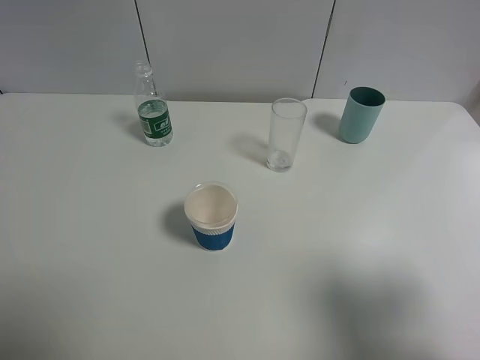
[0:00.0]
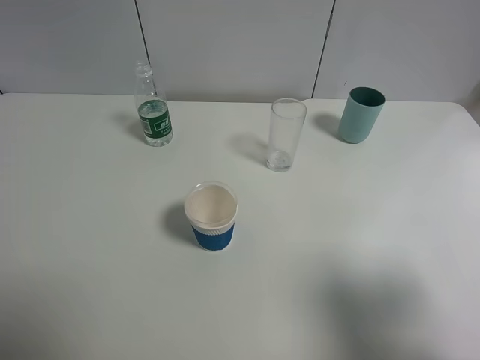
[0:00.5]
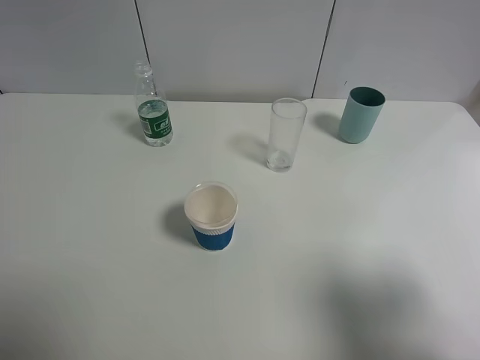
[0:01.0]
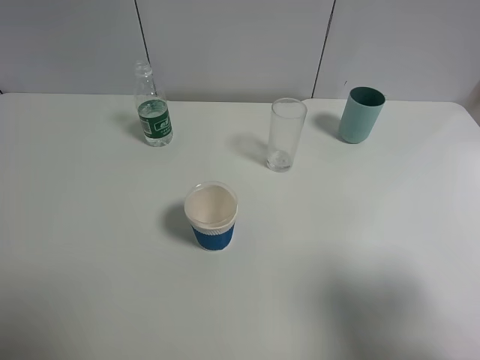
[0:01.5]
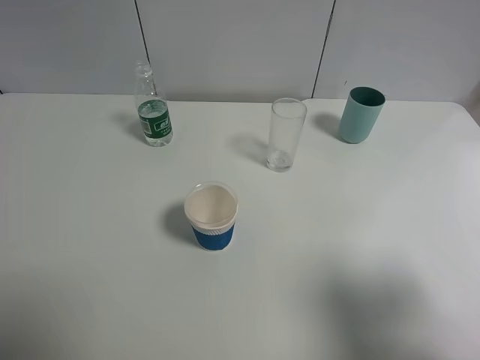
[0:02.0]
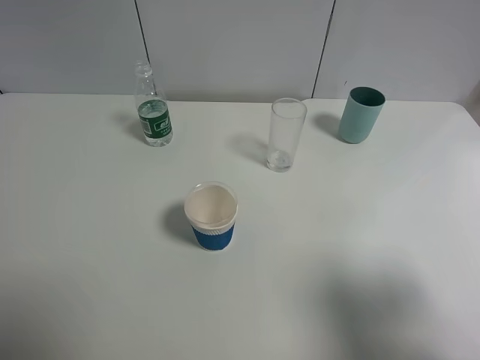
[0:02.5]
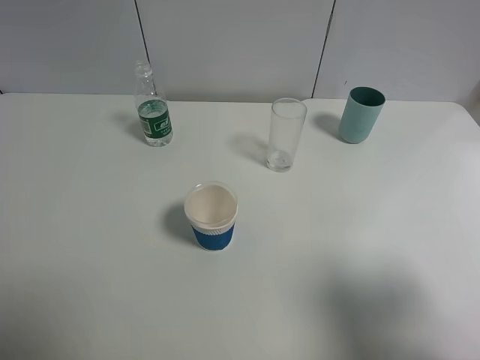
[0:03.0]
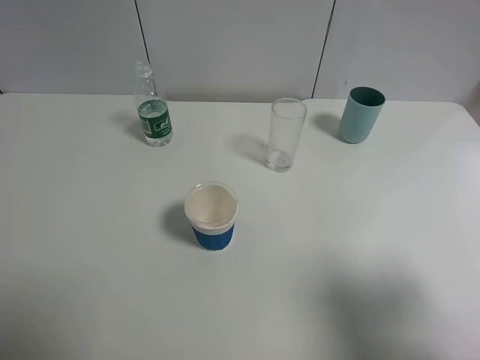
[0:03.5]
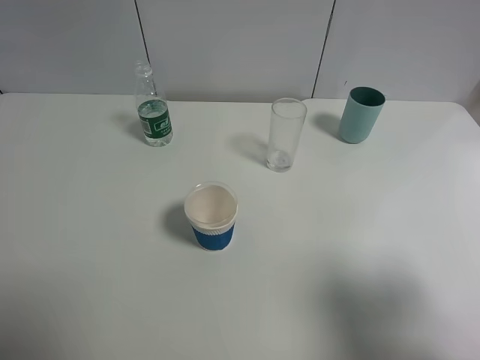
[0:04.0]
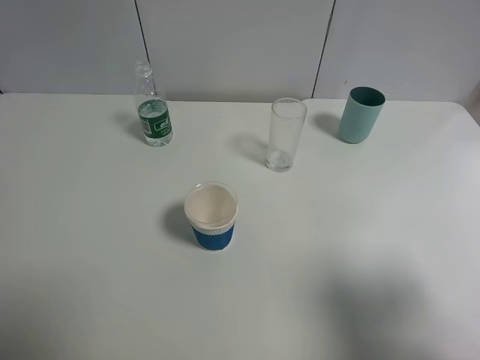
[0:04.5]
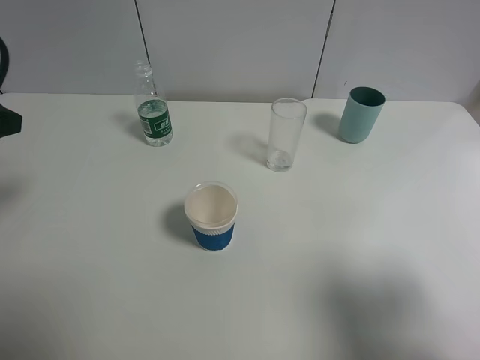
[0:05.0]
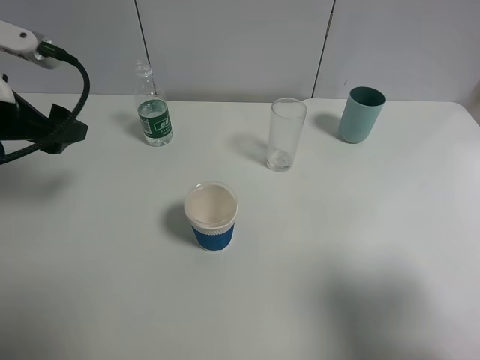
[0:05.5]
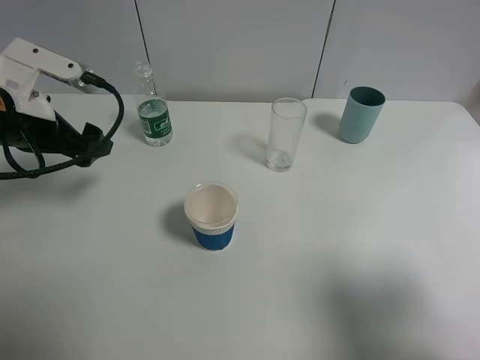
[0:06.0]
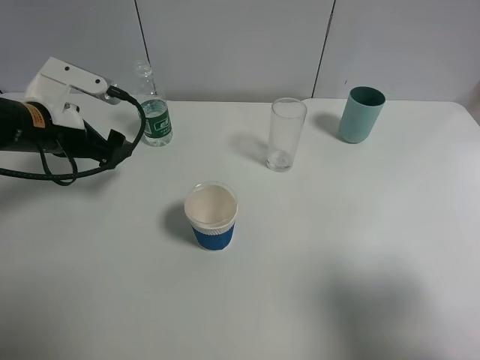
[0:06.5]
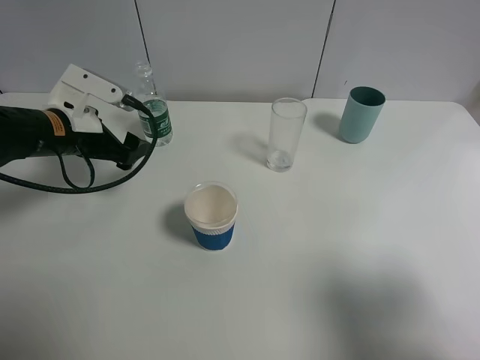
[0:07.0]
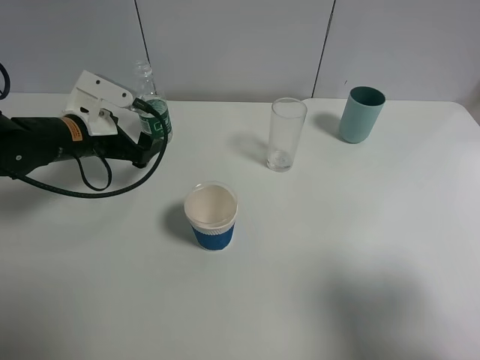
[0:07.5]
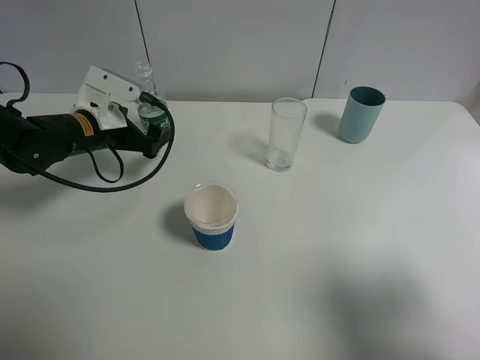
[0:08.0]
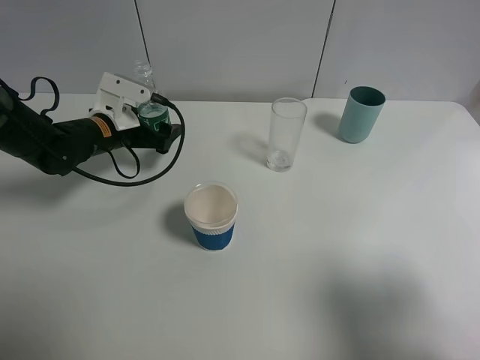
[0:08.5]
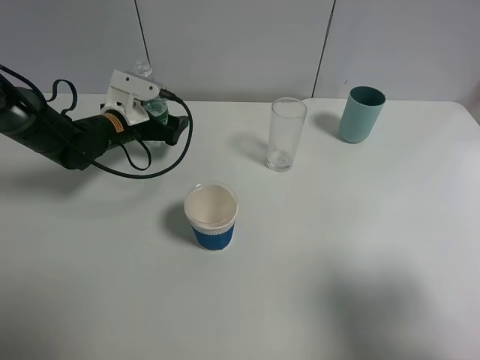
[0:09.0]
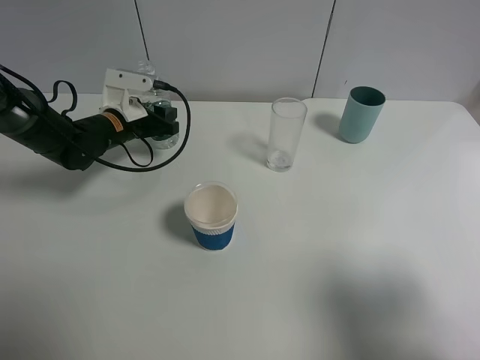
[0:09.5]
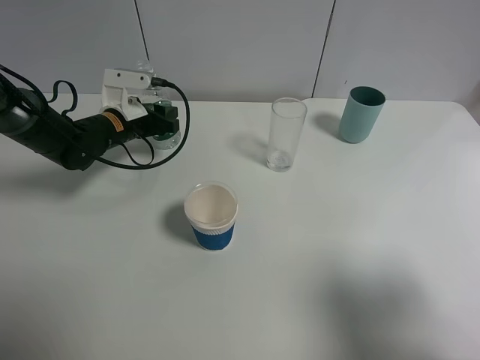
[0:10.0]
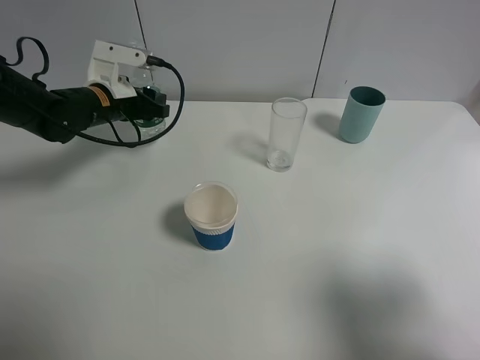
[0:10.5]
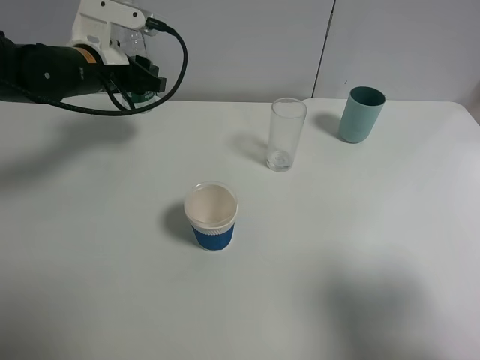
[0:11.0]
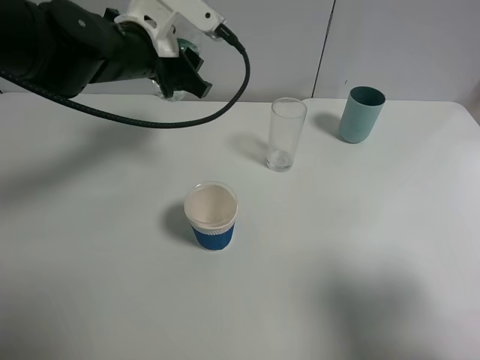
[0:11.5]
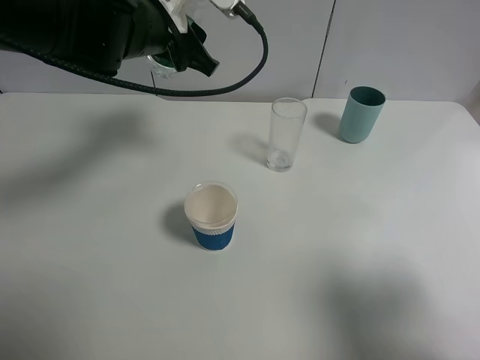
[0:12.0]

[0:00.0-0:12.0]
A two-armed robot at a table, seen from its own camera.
Task of the whole recording: use a gripper to hold the bottle of the drink and pour it into a random cup.
Step, 0.0 to 9.5 s: Grasp the mineral water bottle with the left gripper.
0.0 to 2.0 s: The two grippers keep their place.
4.0 to 6.0 s: The left gripper moves forward and downward, some 25 cm.
6.0 to 8.0 s: The left gripper is displaced downward and forward by some 10 cm.
8.0 to 10.0 s: The left gripper is displaced forward by roughly 5 cm, and closes its fingers.
10.0 to 12.0 s: The left gripper travels upward and to the right by approximately 20 cm.

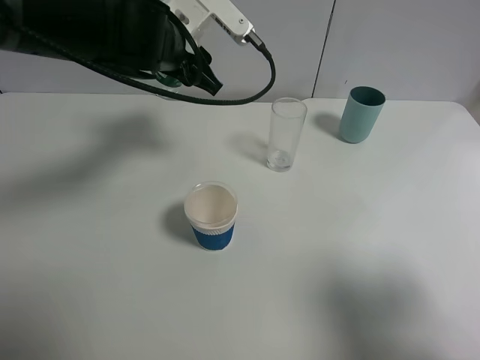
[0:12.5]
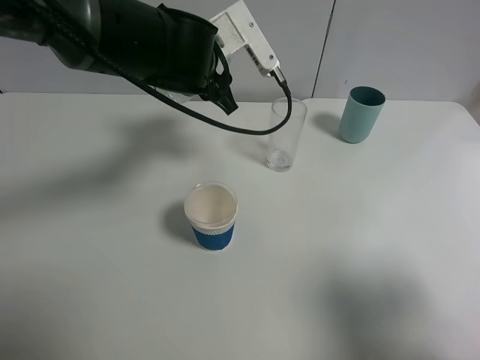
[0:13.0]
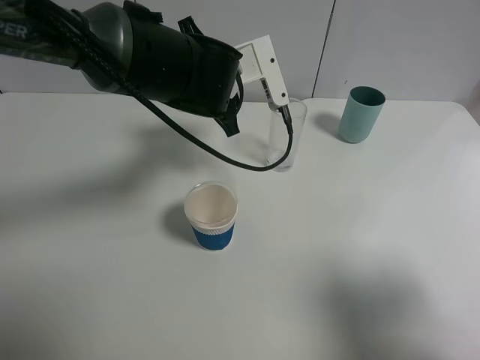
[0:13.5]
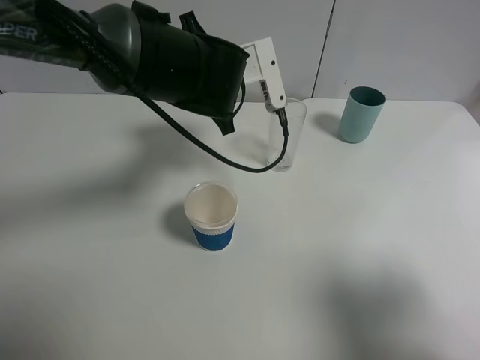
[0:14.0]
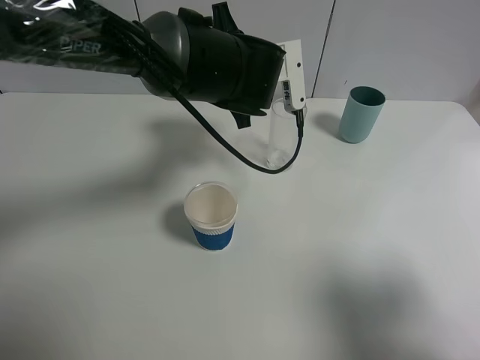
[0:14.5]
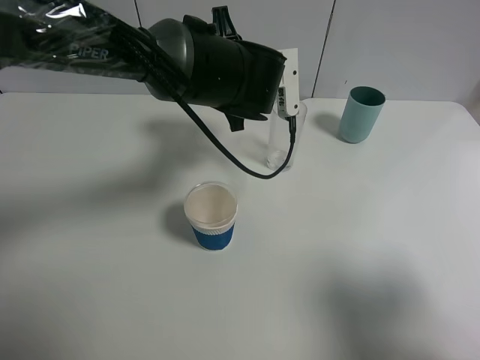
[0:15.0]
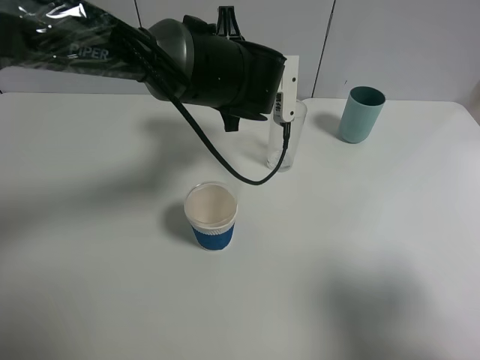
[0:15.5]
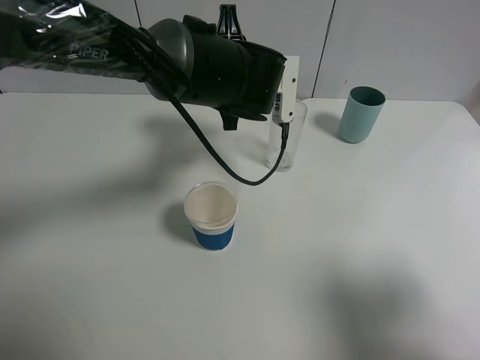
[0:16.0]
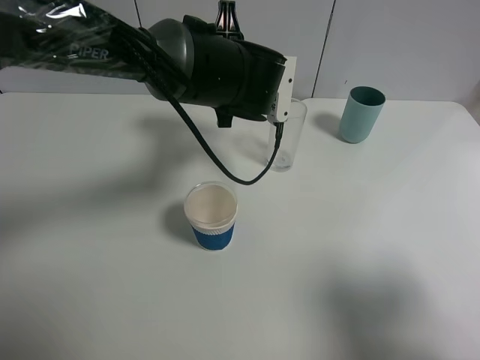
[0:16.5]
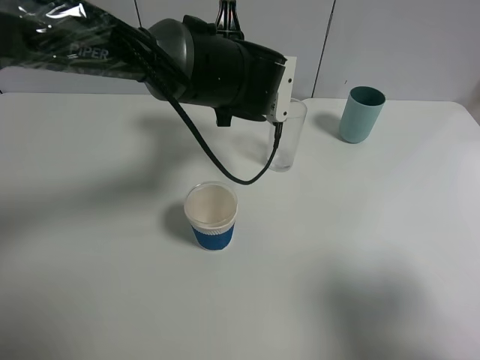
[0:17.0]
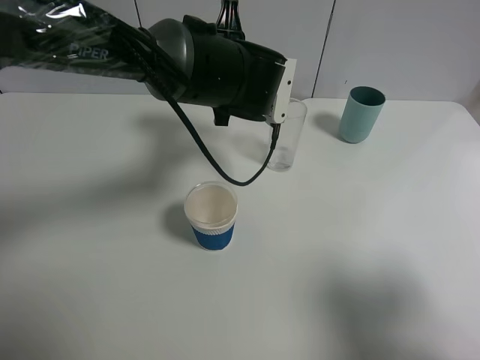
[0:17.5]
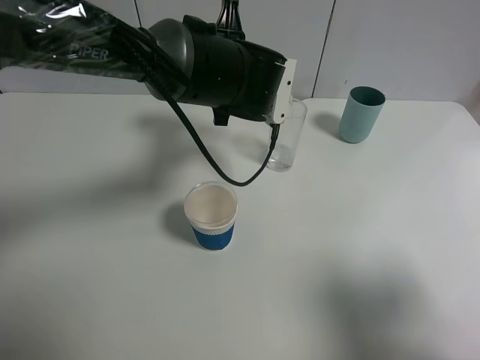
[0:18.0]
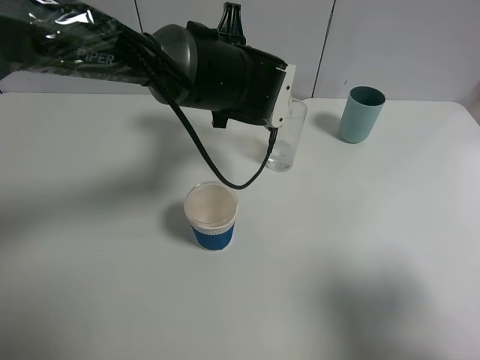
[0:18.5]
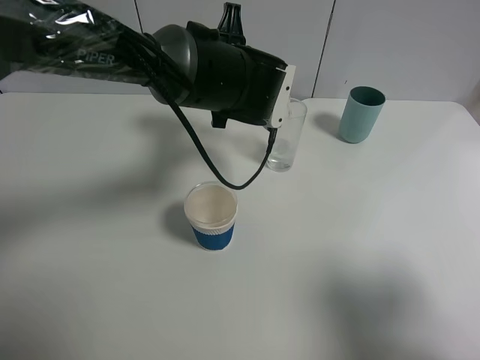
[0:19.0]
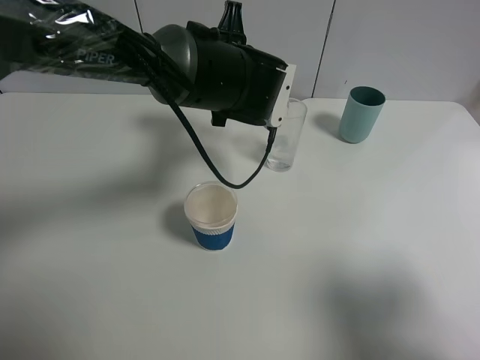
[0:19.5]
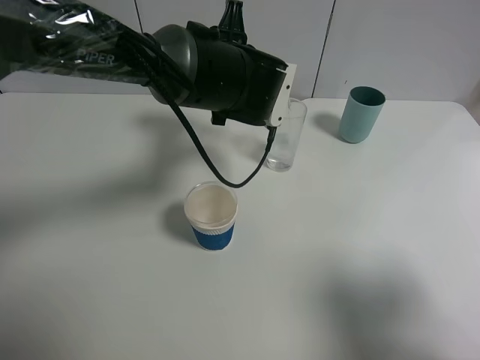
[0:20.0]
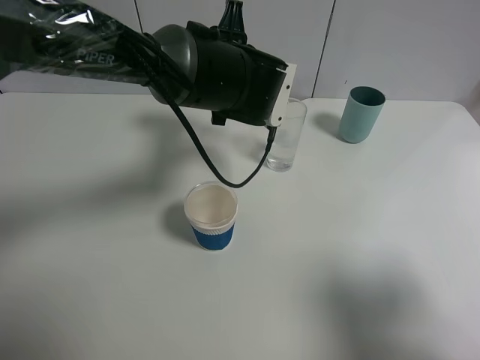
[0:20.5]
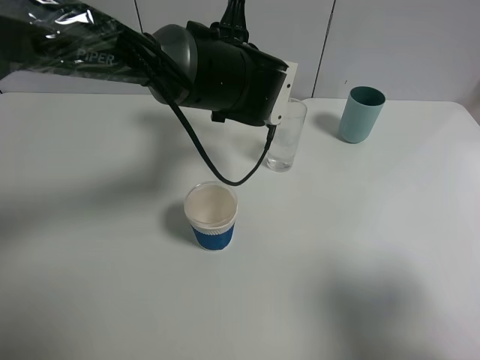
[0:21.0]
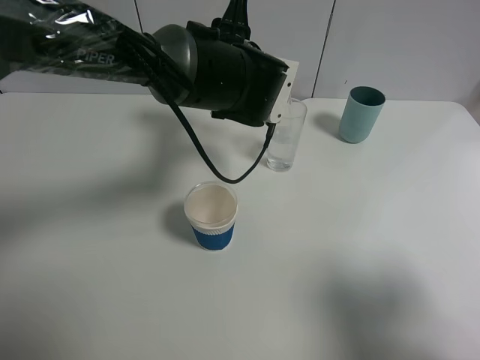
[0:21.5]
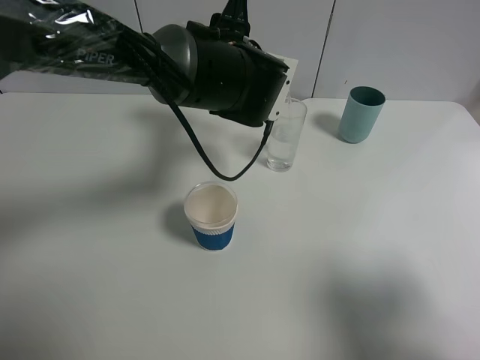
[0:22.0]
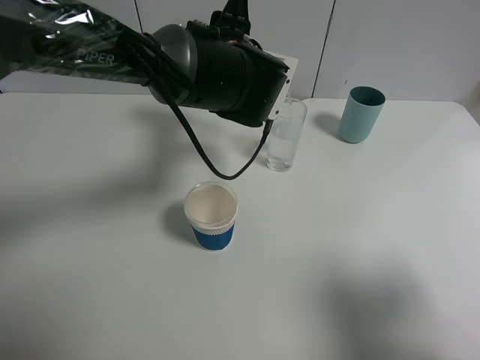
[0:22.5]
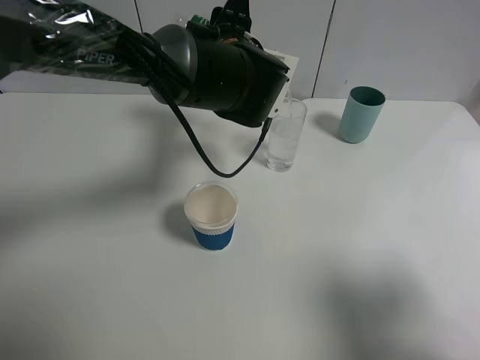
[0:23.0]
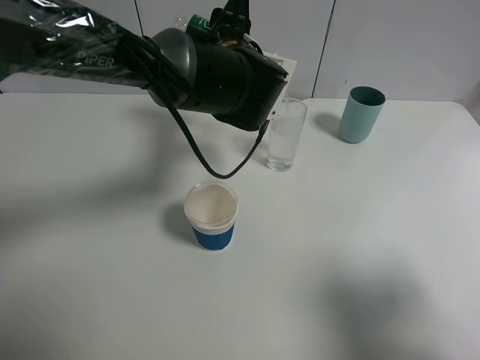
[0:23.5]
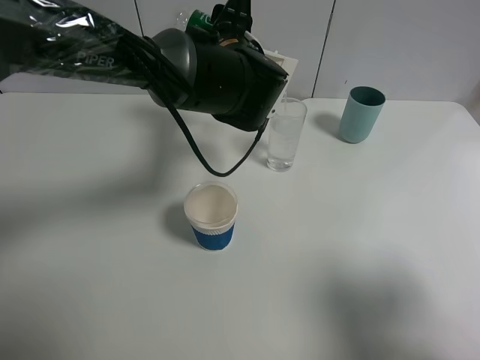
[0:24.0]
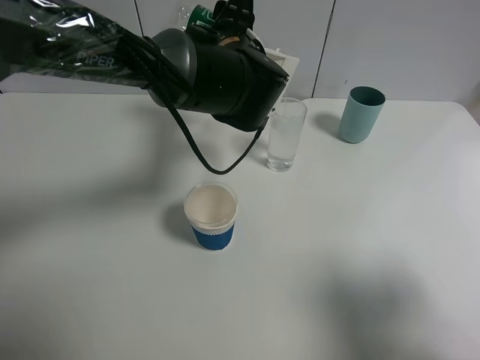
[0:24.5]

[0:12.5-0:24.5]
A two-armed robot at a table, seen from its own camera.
Task of the whole recording: use a gripper to hold the bottle of the drink and pour it into a random cup.
12.5 to 14.5 s: The left gripper shifts about 10 cm to the right.
14.5 to 16.5 s: The grippers stay close to where they were, moving slightly.
16.5 to 18.5 s: The grippers make only small movements.
18.5 to 20.5 s: Both grippers stay put.
20.5 to 24.5 s: There are only small adjustments of the grippers.

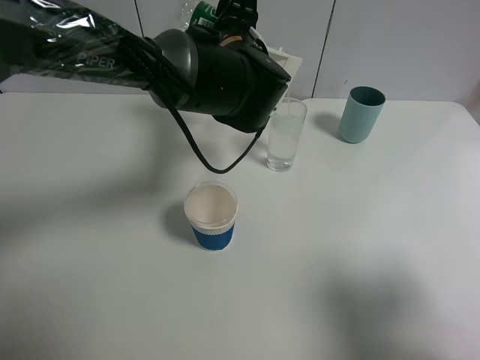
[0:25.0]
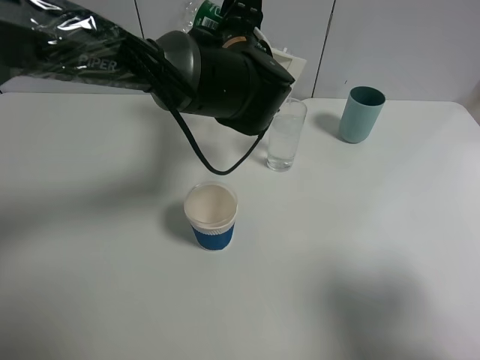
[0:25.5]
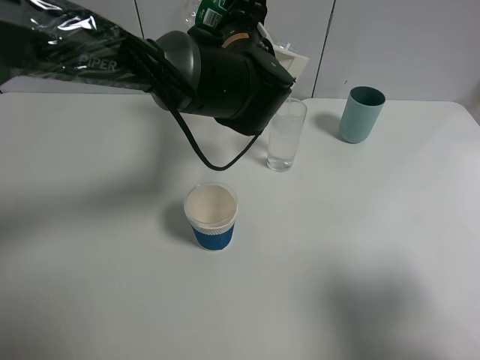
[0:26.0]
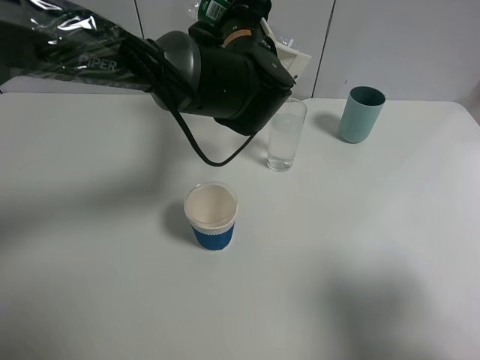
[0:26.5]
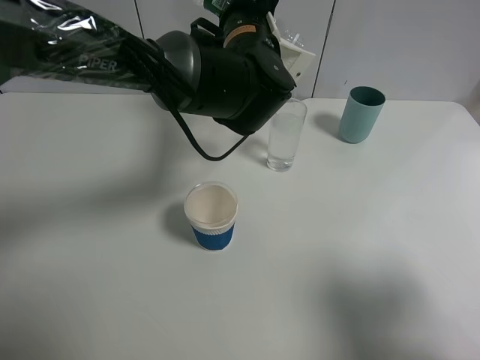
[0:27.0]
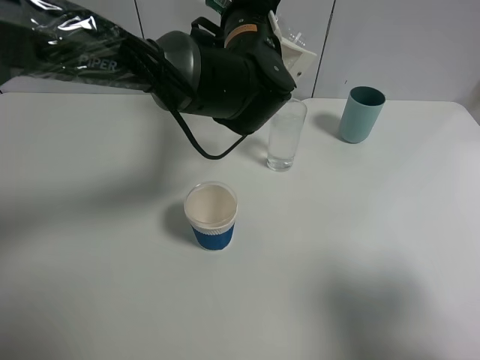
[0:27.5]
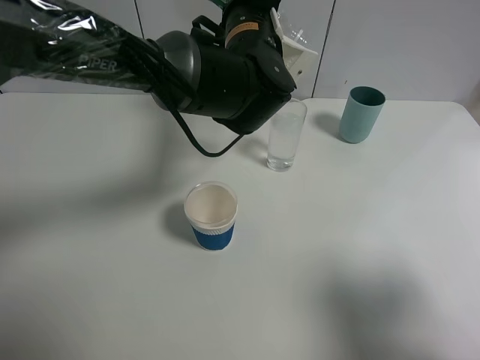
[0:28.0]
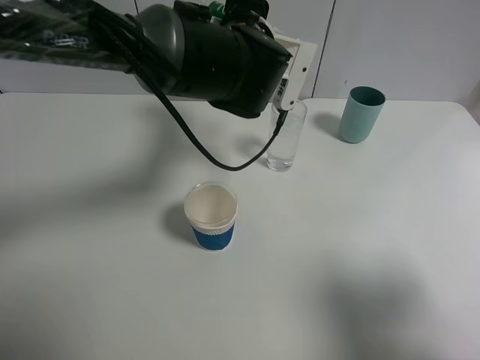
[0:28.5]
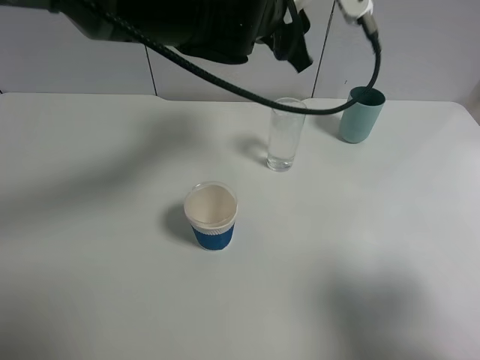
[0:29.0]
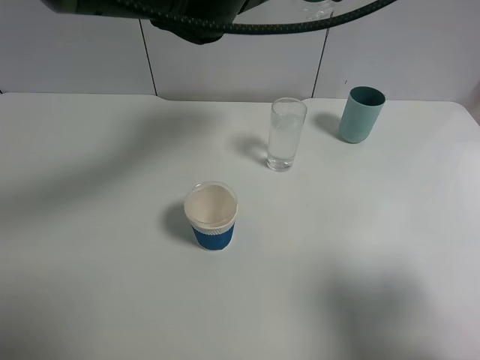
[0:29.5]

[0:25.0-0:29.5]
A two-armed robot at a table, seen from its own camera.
Task of the whole recording: use a gripper to hold the bottle of the drink and pour it into a random cup.
Step, 25.0 to 29.0 s: Pour the mineral water into the glass with the left gripper.
25.0 to 27.0 s: The grippers stay close to where they were, moving slightly.
27.0 to 29.5 s: The left gripper goes some 10 cm upward.
